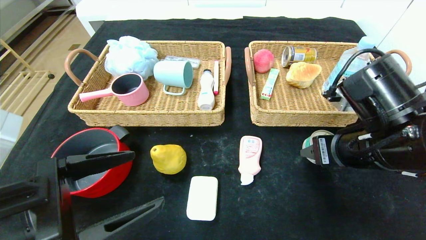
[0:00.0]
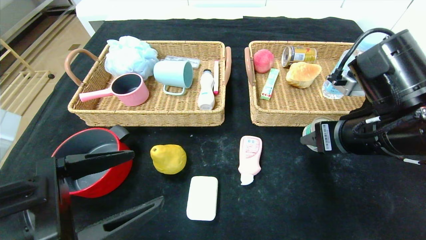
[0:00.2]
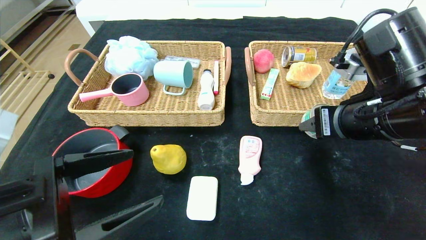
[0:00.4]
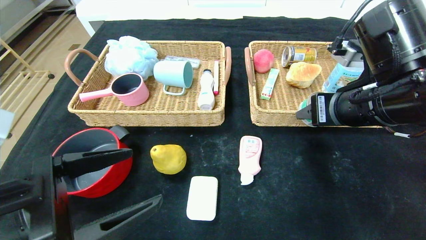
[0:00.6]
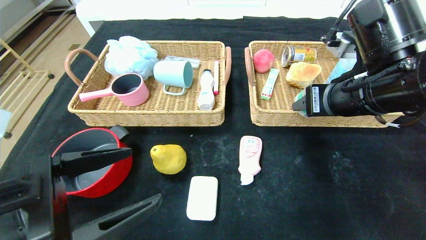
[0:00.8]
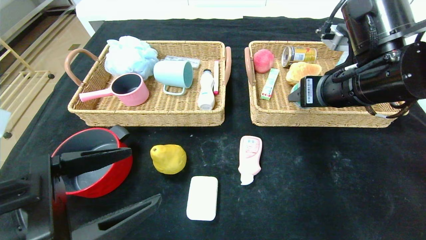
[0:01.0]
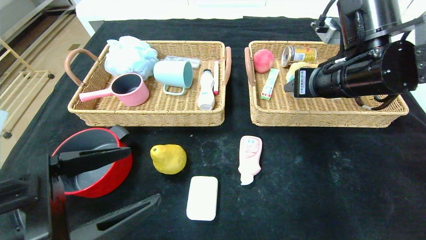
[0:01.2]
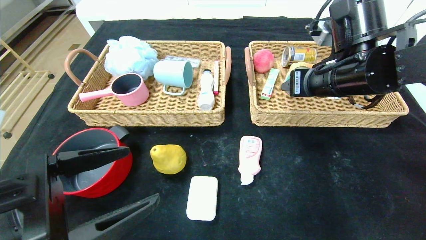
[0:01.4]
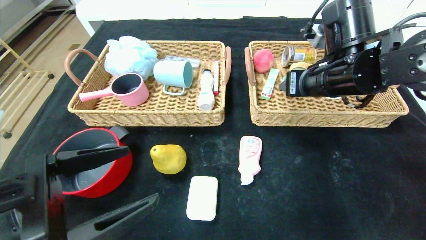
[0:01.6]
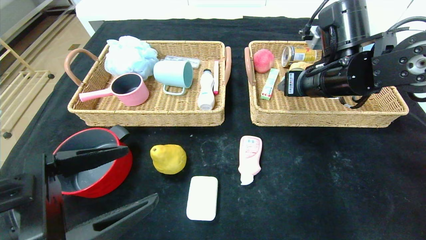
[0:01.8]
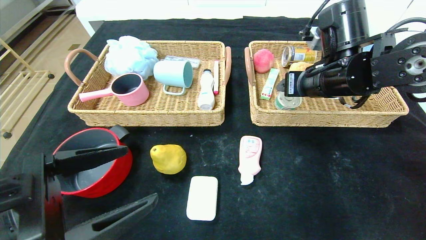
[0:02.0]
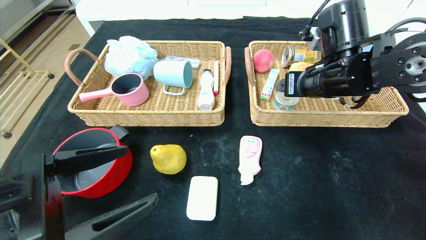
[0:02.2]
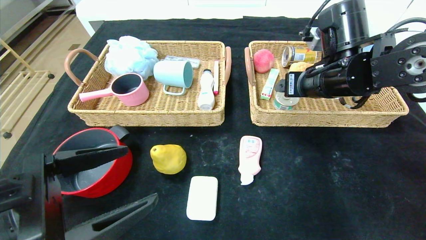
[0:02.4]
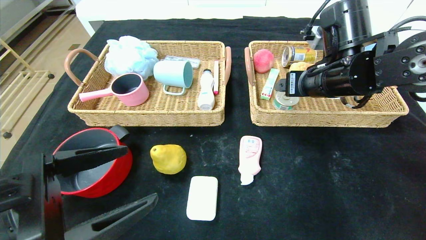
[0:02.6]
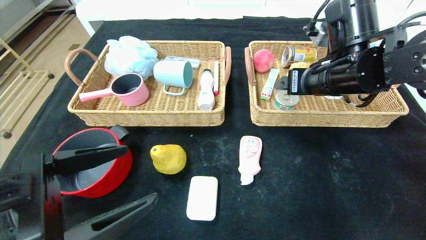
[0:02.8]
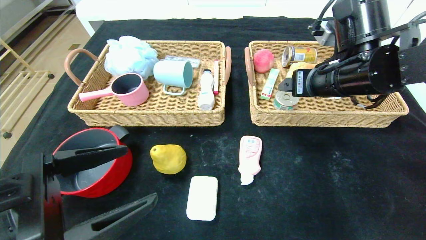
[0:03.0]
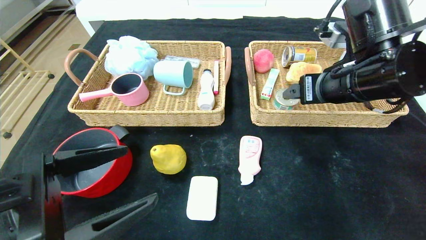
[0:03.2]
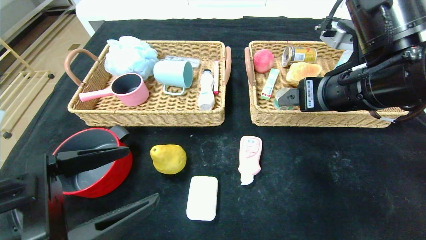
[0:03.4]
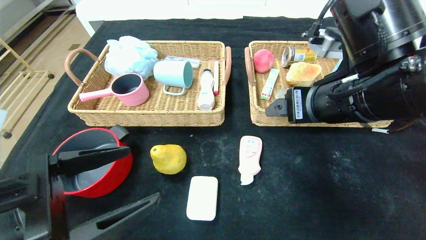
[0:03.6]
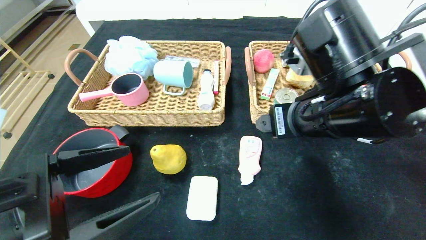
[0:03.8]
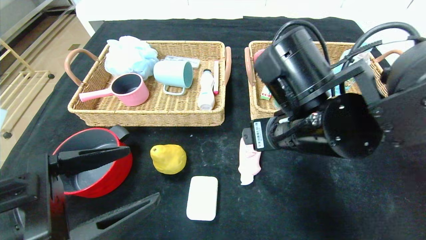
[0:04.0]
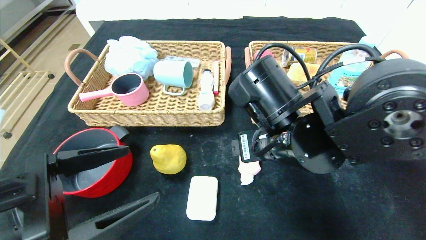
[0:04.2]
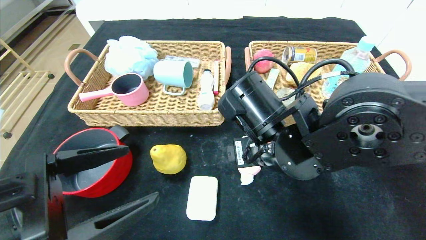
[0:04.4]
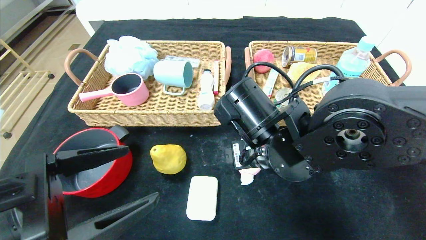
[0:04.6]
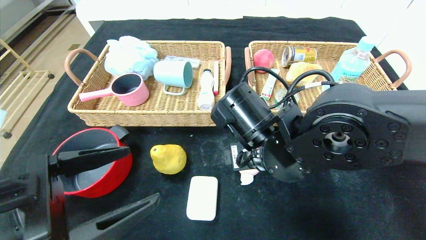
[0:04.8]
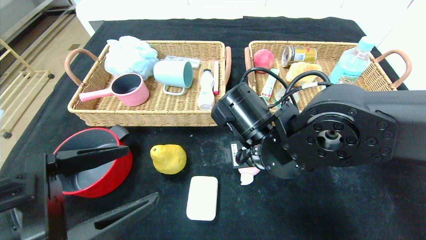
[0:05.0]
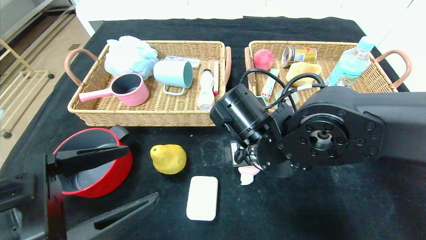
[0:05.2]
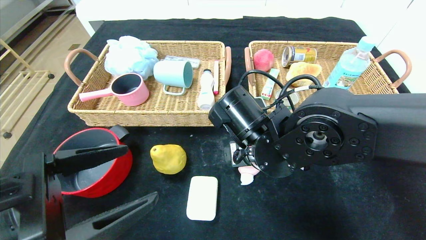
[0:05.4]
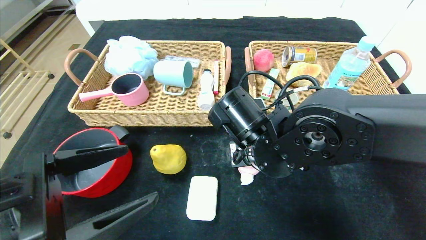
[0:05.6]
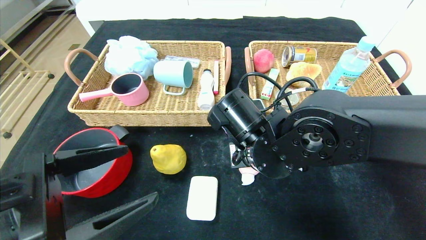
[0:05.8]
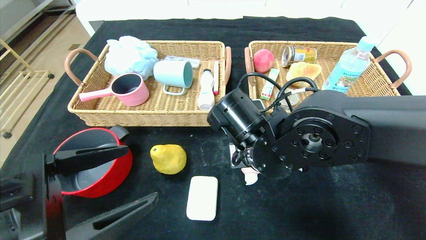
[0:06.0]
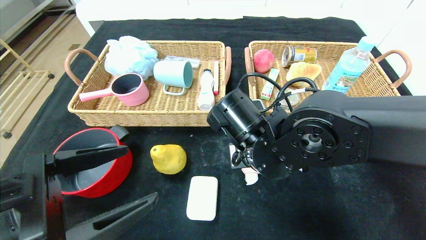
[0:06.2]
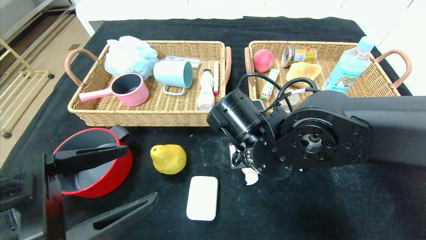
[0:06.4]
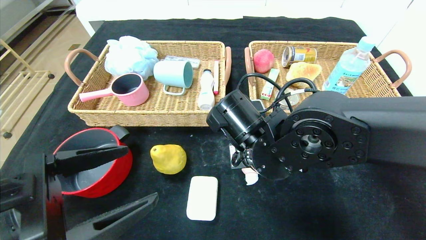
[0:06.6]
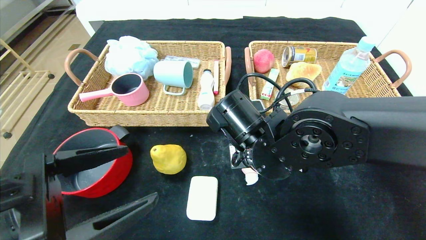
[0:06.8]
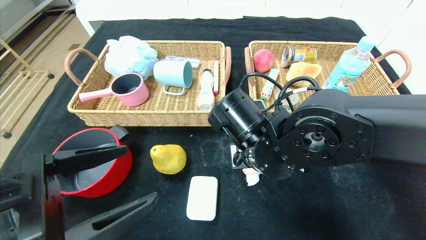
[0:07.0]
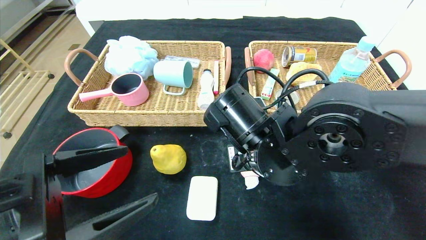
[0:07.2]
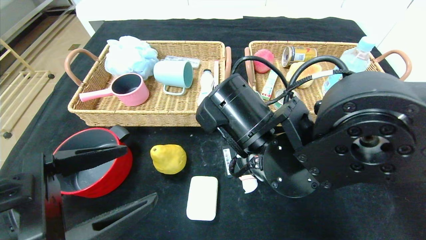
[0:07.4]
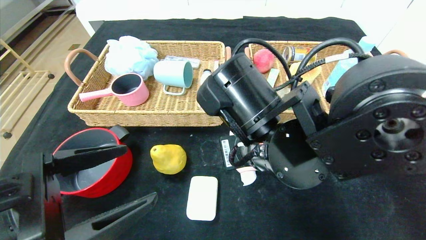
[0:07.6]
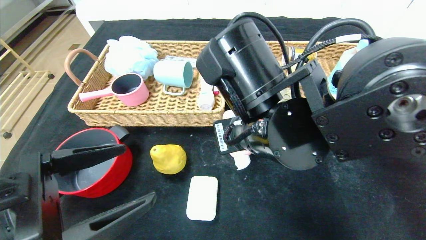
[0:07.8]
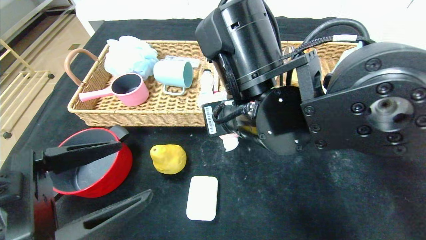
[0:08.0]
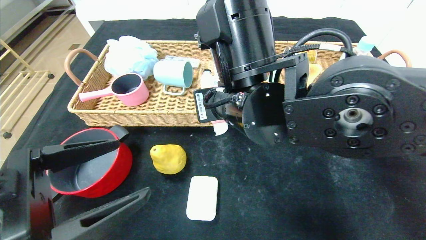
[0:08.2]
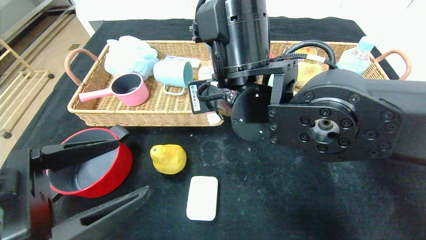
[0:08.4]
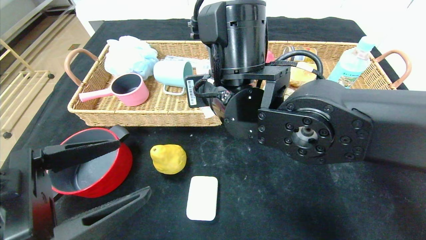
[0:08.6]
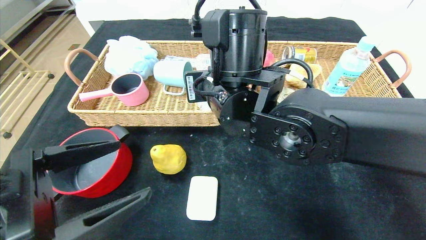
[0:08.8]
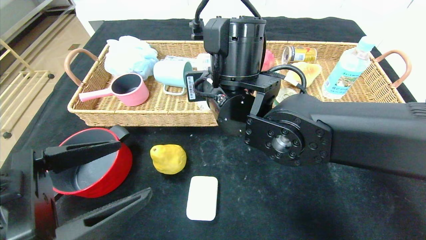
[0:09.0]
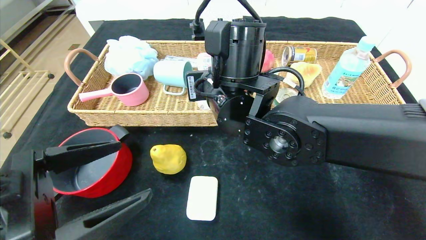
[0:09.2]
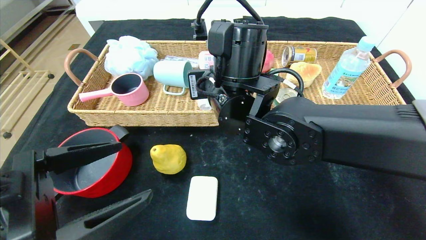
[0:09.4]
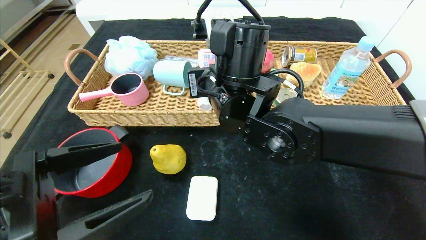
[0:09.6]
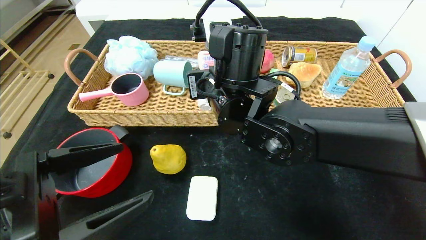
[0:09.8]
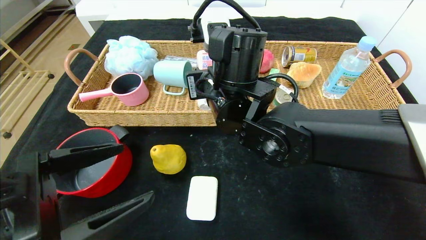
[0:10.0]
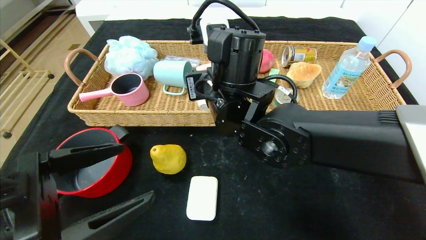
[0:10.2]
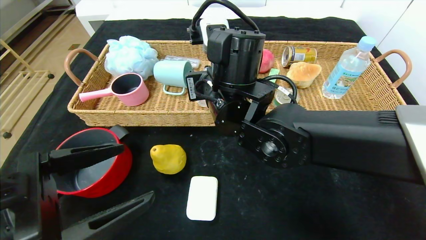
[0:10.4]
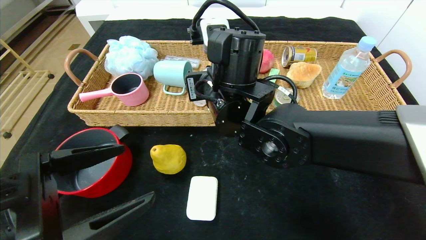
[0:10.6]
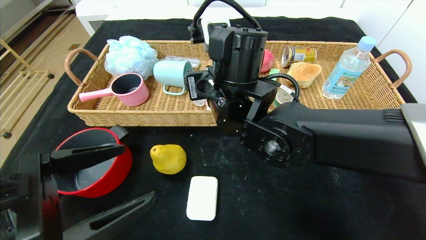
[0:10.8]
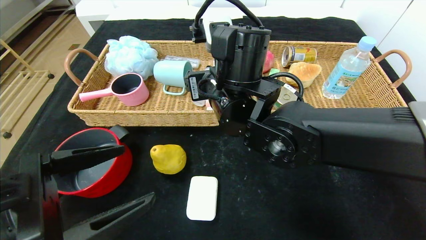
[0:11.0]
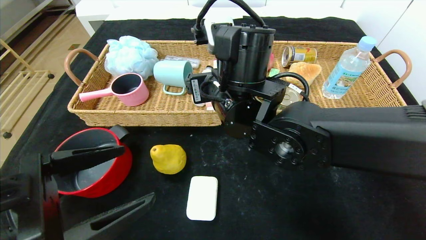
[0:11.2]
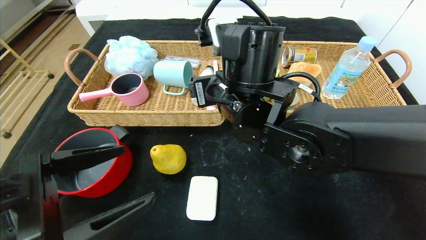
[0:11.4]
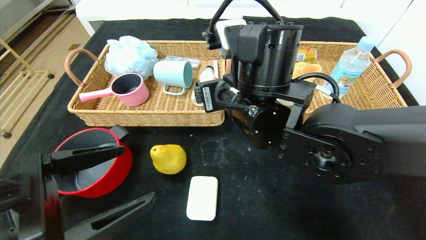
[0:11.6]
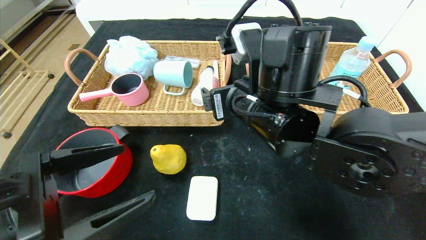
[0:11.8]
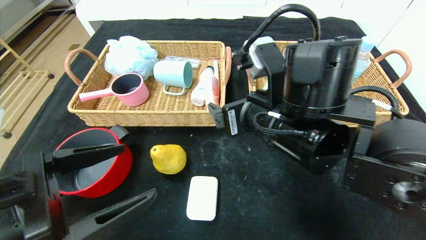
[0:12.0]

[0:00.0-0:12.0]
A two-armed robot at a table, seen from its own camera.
Step, 0:00.0 to 0:03.0: Grasp the can and put it in the right basket.
0:00.0 to 0:01.6: The right gripper travels forward and upward by roughly 10 cm.
0:01.6 to 0:03.0: The right gripper opens.
0:03.0 to 0:04.4: The right gripper shifts about 15 cm to the left, downward and backward.
0:04.4 to 0:06.0: The right gripper closes its fingers.
0:06.0 to 0:07.6: The right gripper moves roughly 5 cm.
0:07.6 to 0:09.0: The right gripper goes roughly 5 cm forward.
0:09.0 to 0:10.4: The right gripper opens its fingers.
0:10.4 to 0:12.0: The right gripper is displaced to the right and backward by roughly 10 cm, and opens.

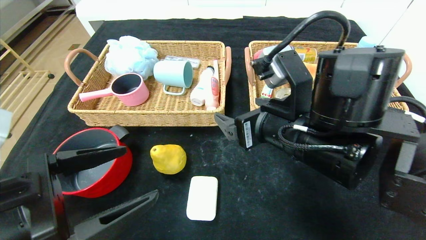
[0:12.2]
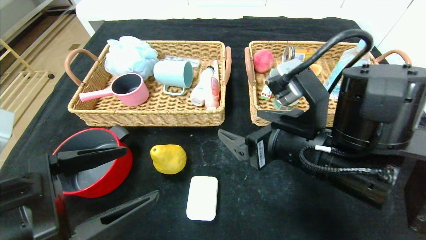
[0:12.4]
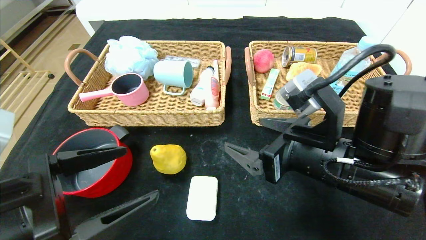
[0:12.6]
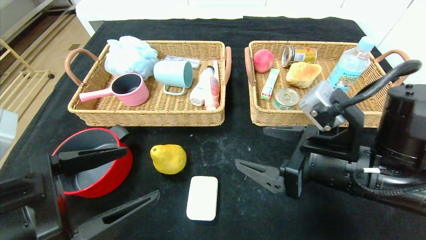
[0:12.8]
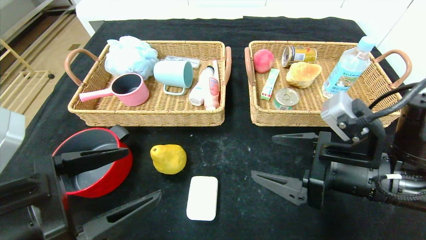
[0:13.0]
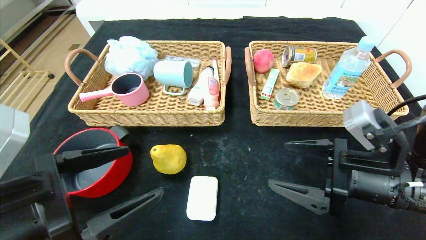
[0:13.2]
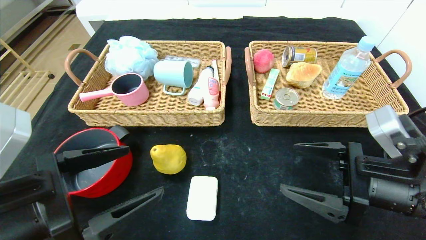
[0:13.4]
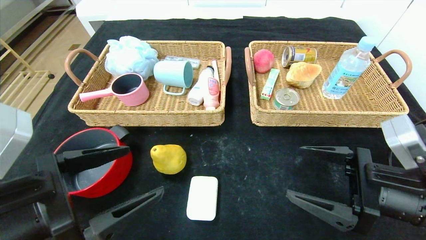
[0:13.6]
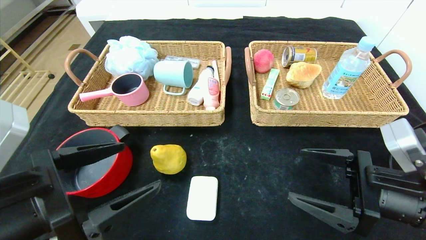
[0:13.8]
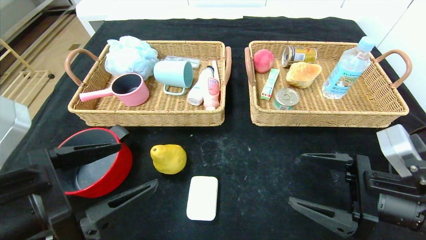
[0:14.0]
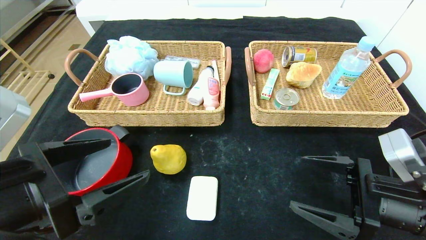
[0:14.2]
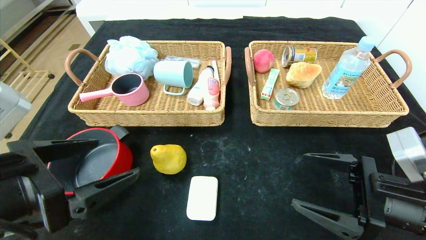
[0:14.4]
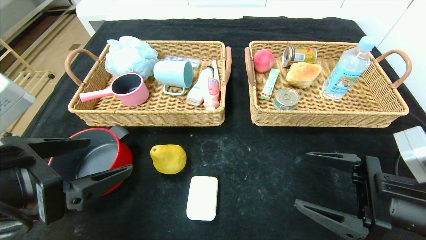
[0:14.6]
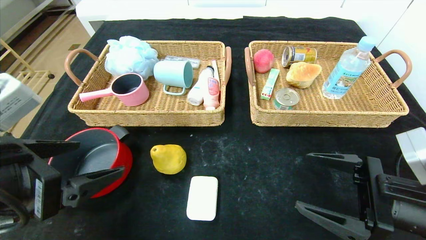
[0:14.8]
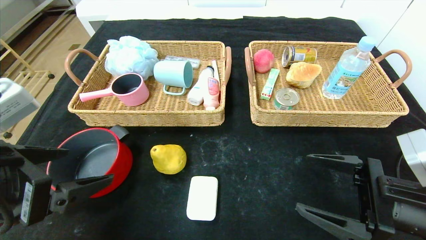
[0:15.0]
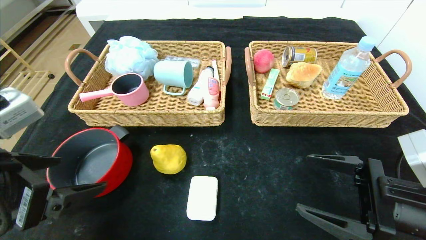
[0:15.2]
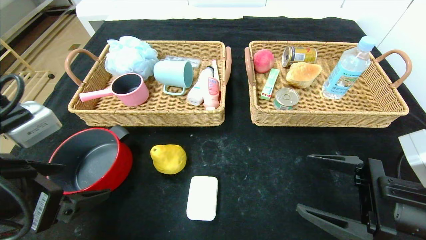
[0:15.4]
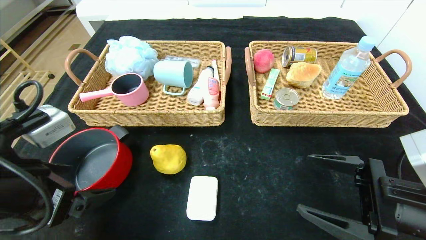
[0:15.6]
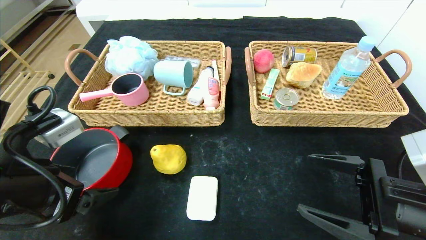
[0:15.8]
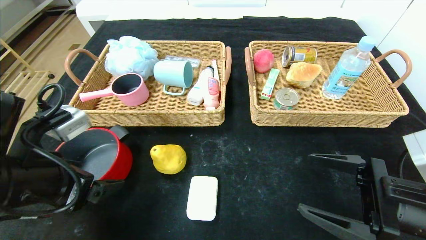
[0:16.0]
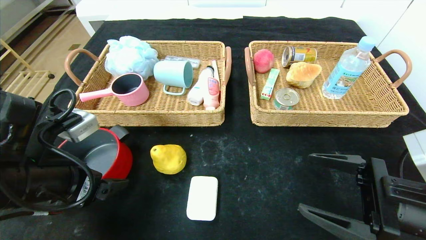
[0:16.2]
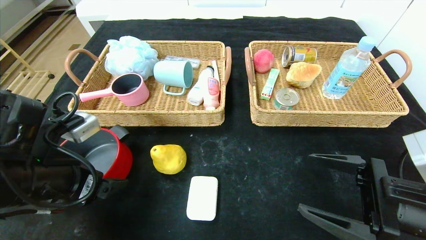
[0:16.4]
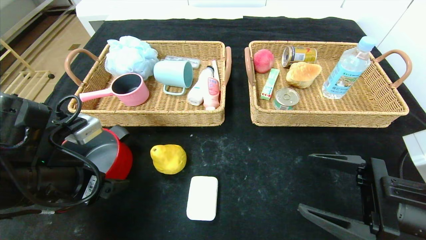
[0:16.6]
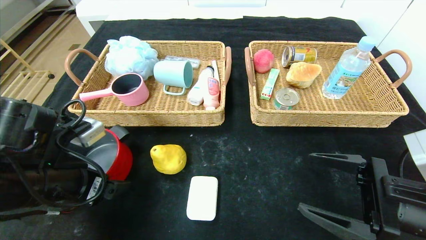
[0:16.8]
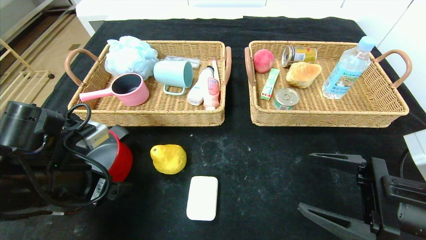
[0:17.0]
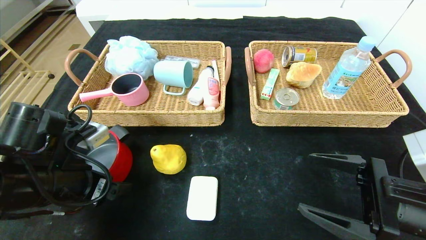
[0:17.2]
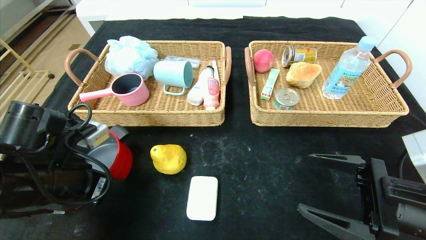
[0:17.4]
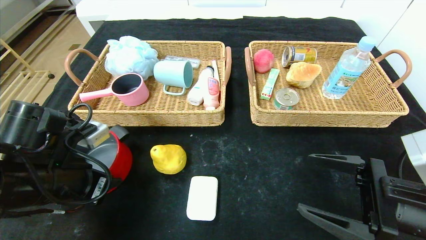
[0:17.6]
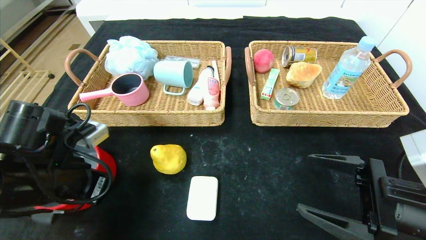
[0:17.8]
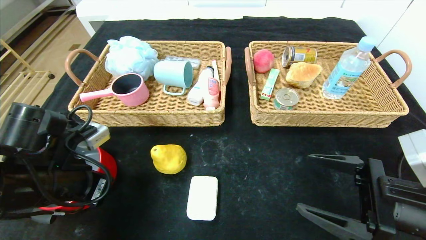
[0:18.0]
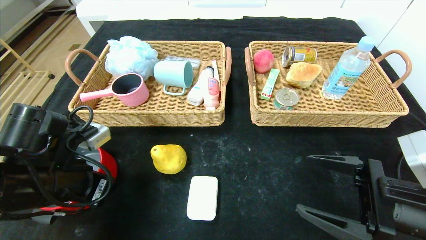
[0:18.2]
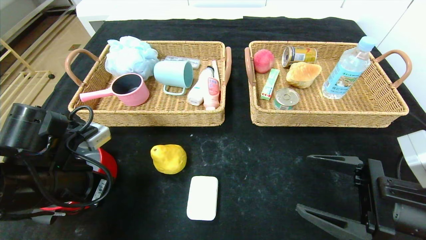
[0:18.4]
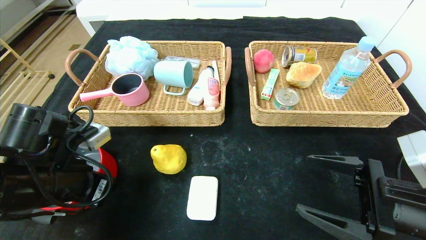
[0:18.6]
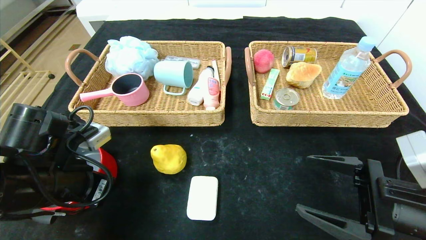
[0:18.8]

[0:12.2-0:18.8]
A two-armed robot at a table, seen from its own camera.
0:12.2 to 0:13.8: The right gripper is displaced to the right and downward by roughly 15 cm.
0:15.4 to 0:17.2: The left gripper shifts some 10 cm forward and downward.
0:17.2 to 0:18.8: The left gripper closes its fingers.
